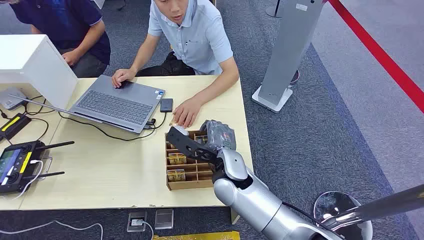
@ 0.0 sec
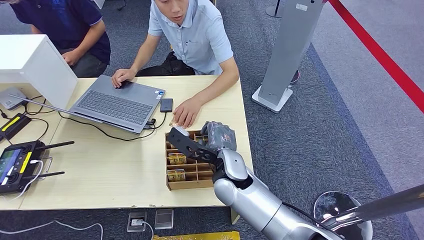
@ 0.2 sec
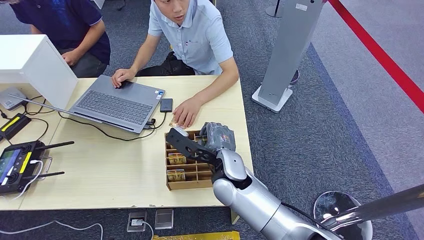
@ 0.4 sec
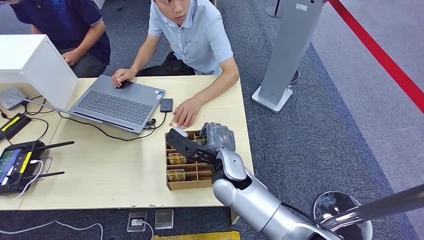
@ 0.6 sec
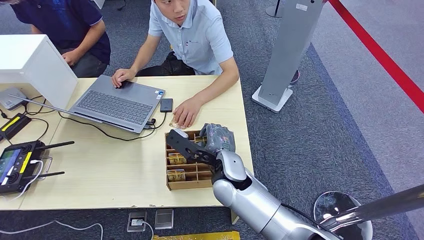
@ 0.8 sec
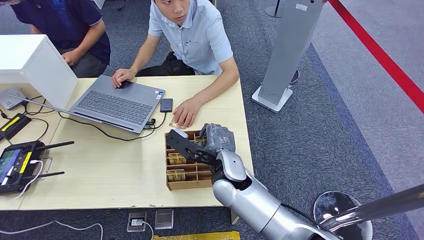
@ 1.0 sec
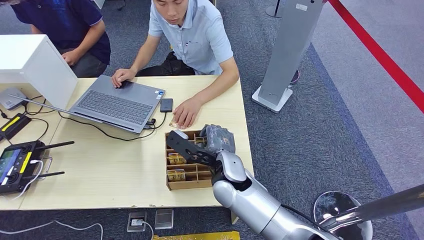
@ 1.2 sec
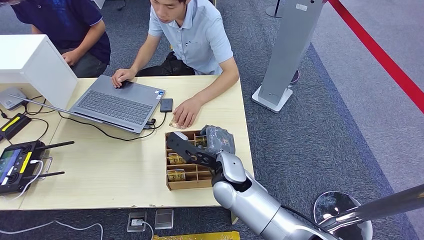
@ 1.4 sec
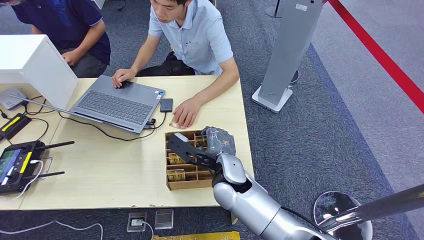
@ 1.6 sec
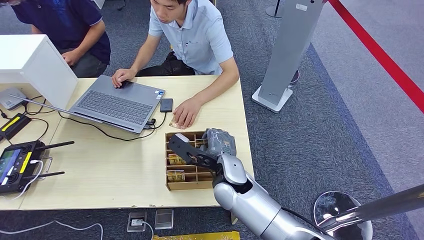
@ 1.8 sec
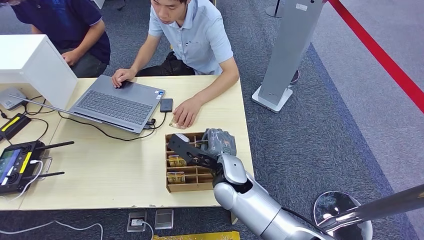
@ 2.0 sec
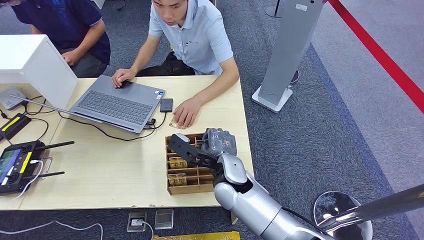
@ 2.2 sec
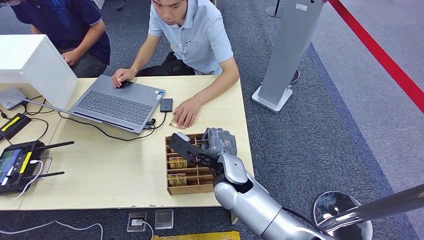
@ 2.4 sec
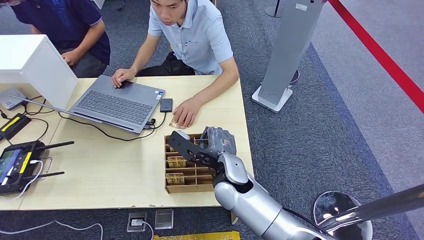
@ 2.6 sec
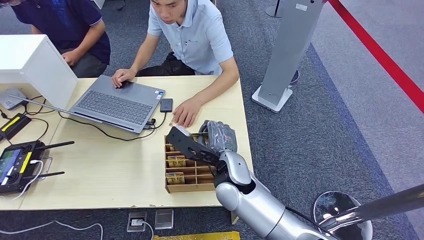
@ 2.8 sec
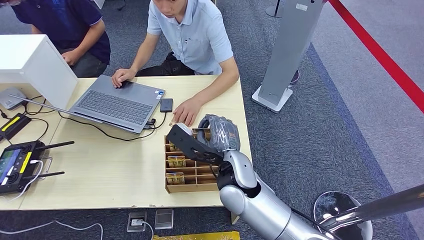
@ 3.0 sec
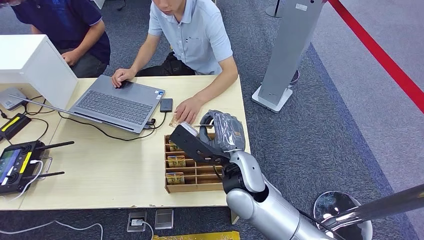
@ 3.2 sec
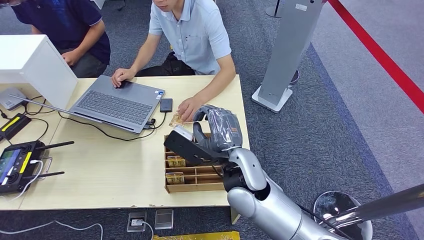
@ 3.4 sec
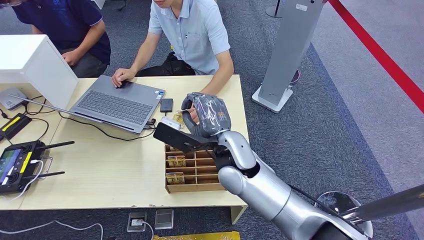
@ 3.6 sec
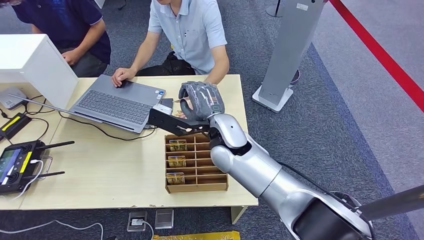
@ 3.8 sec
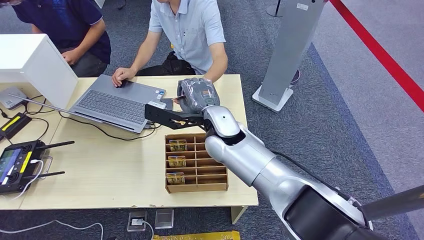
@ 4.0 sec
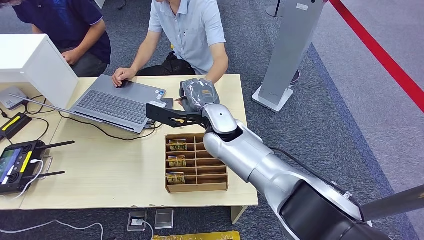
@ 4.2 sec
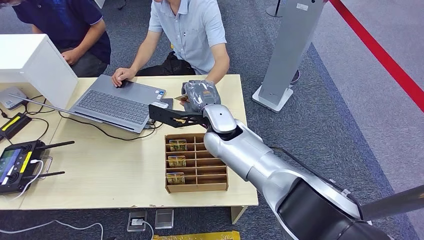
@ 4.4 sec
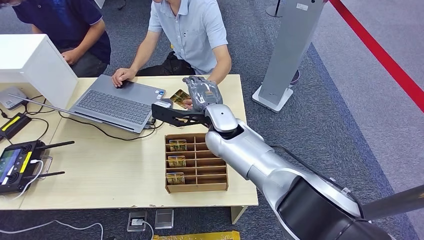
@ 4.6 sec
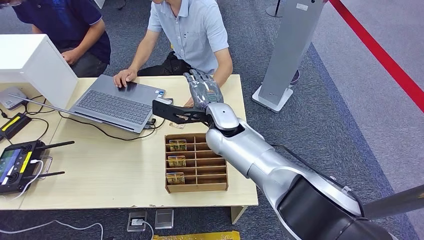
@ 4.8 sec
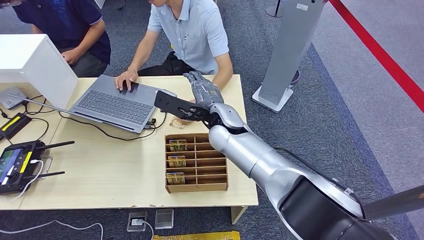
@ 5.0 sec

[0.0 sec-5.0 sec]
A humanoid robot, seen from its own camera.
Step, 0.0 sec to 3.0 sec: Pick up the key card from the card box.
Step, 3.4 sec to 5.0 sec: Hand the key card to the target.
1.6 sec to 3.4 sec: The right hand is displaced upward by roughly 5 cm.
3.4 sec to 5.0 sec: The right hand goes about 10 cm forward.
